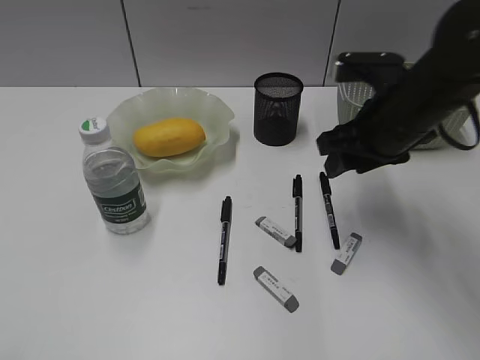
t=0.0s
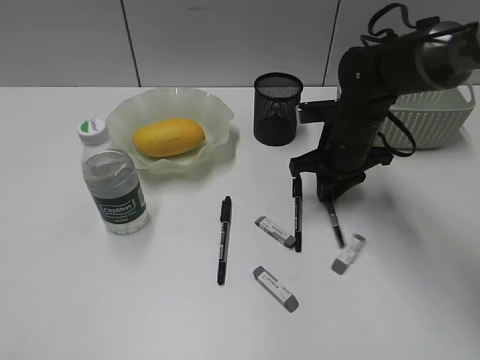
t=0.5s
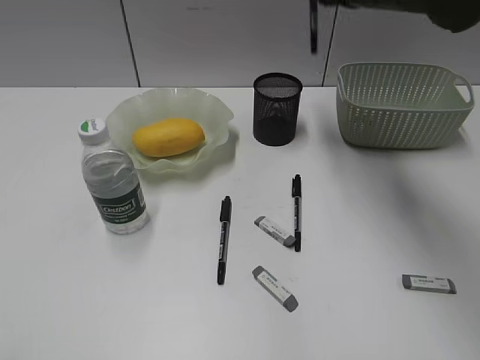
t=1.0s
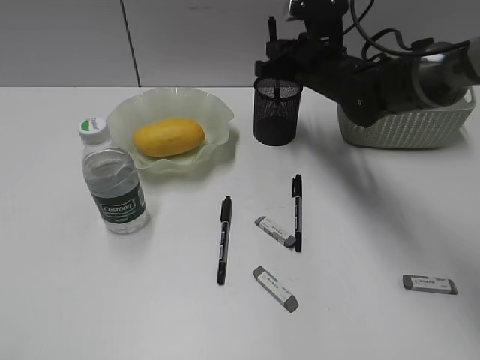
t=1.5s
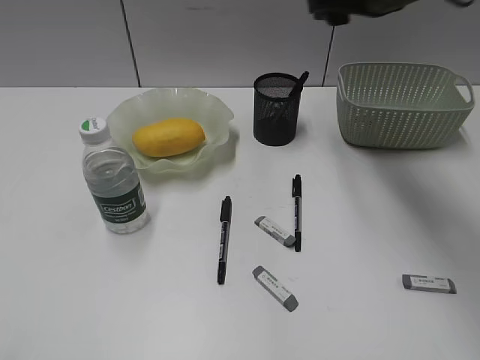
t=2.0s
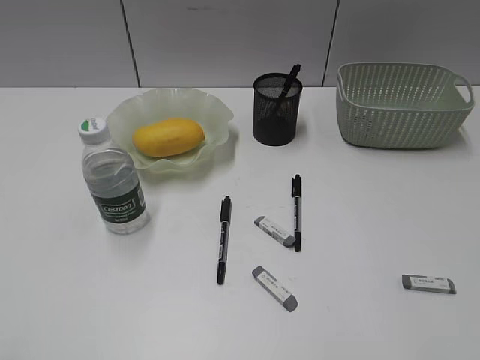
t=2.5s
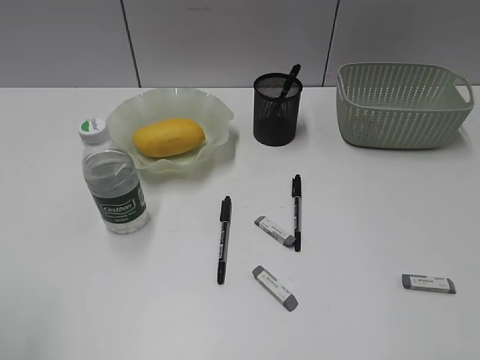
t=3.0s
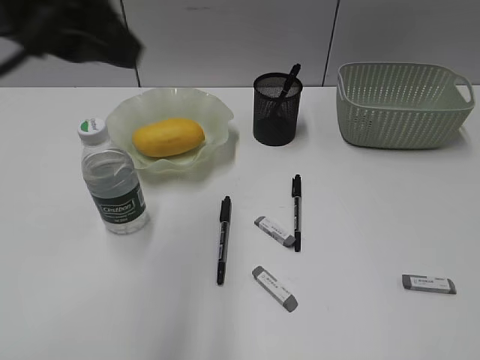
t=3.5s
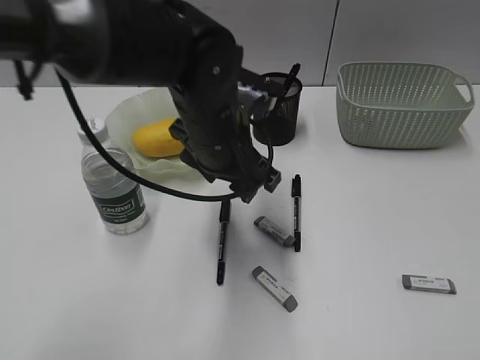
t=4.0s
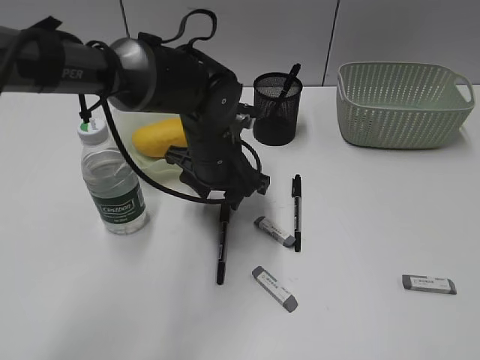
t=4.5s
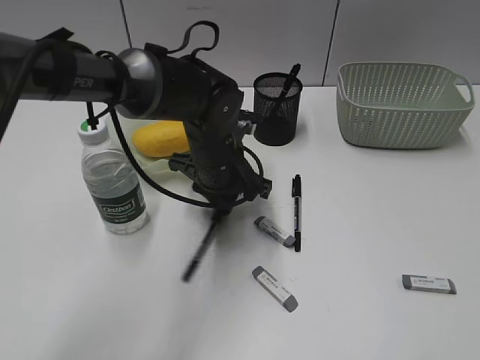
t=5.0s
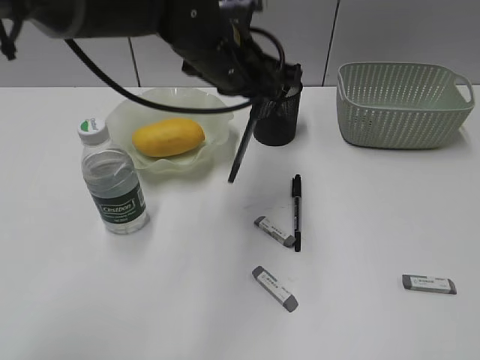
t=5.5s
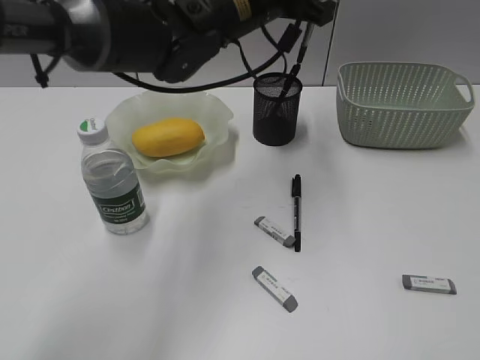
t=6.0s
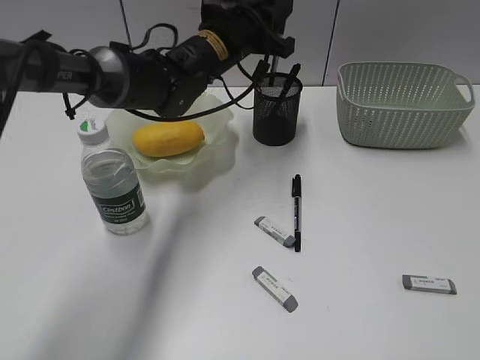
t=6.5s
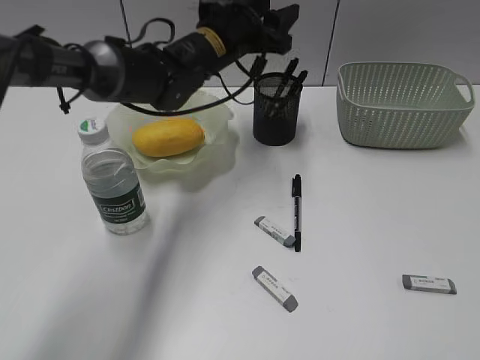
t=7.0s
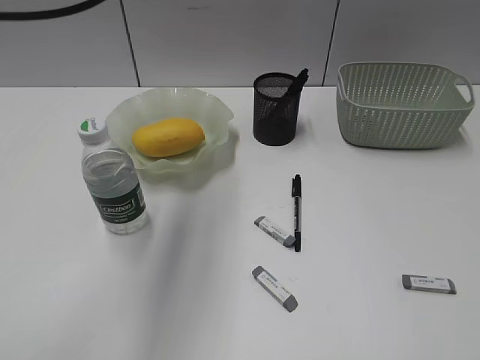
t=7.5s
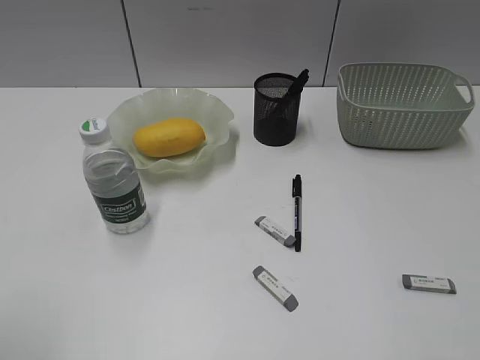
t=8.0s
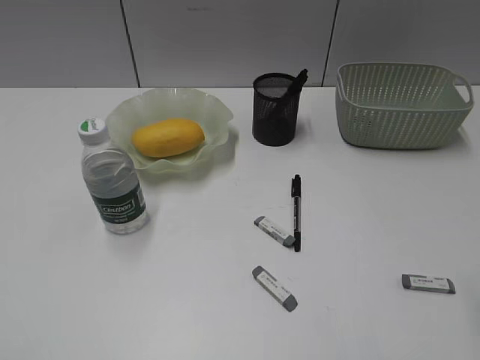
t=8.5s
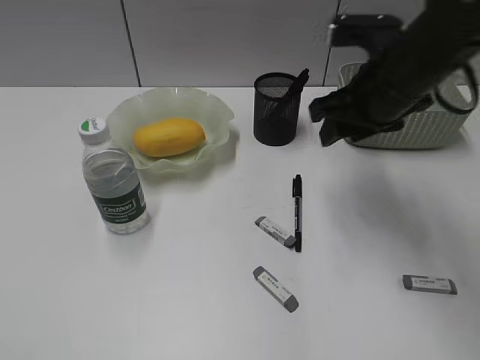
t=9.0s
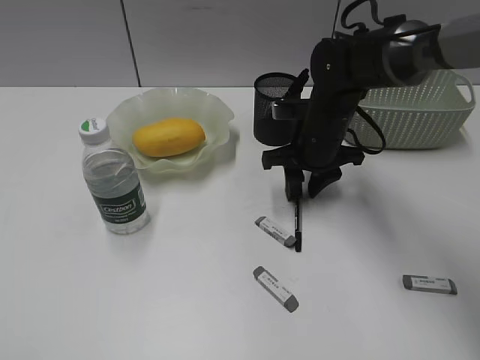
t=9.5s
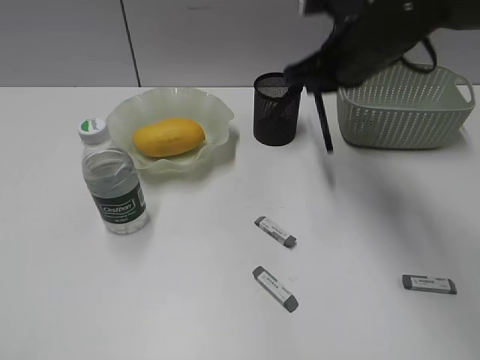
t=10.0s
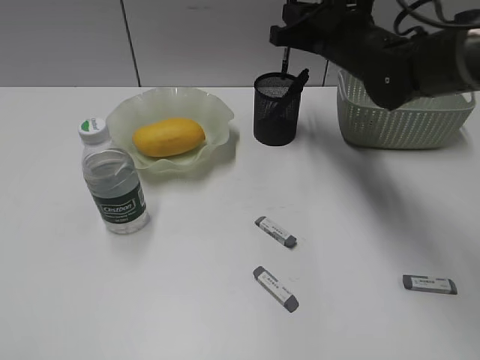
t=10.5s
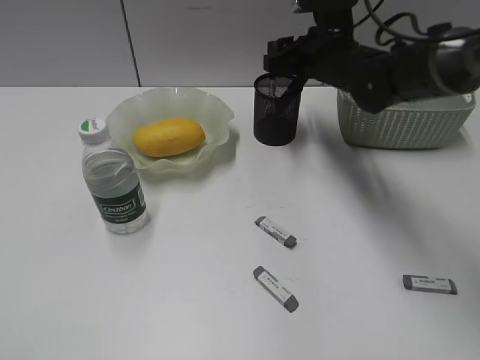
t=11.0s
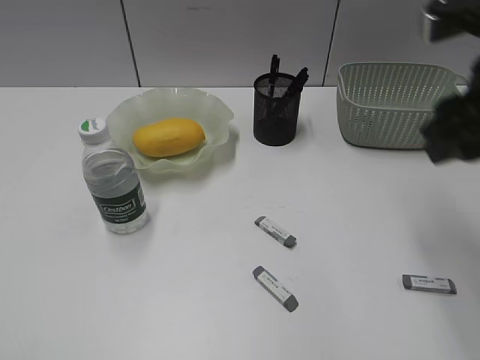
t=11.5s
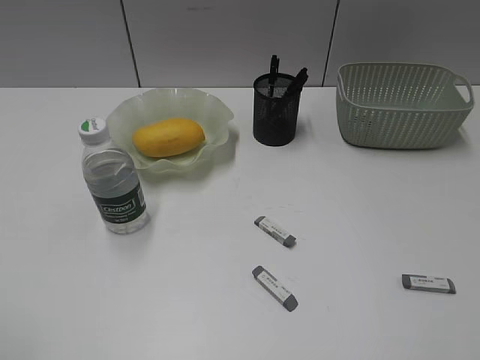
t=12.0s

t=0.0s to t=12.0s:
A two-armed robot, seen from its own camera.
Step, t=1.0s to t=1.5s: Place the black pen in pen holder with right gripper.
Step, t=2.0s to t=5.0s: Grasp the black pen with left gripper.
Step, t=5.5s to t=6.5s: Place the black pen in pen holder with left gripper.
Step, t=7.0s to t=9.5s: Grasp the black pen with right gripper.
Step, t=10.0s to t=11.0s: Place the black pen in pen holder with right gripper.
t=0.0s to t=2.0s: The right gripper swings up and down, about 20 cm each way, with 3 reversals, and closes, then opens again.
t=2.0s to t=4.0s: The left gripper moves to the right and forward, some 40 cm. Meanwhile the right gripper shifts approximately 40 cm backward and to the right.
t=4.0s to t=6.0s: The left gripper is displaced forward and upward by roughly 15 cm, and closes.
t=6.0s to t=8.0s: The left gripper moves backward and to the left, approximately 50 cm, and opens.
t=8.0s to t=10.0s: The right gripper travels forward and to the left by some 40 cm, and closes its fingers. Meanwhile the left gripper shifts by roughly 5 cm.
t=10.0s to t=12.0s: The right gripper goes approximately 40 cm backward and to the right, and opens up.

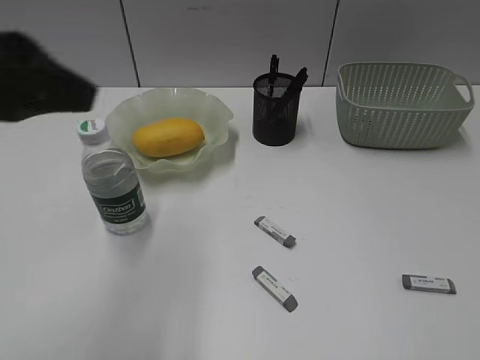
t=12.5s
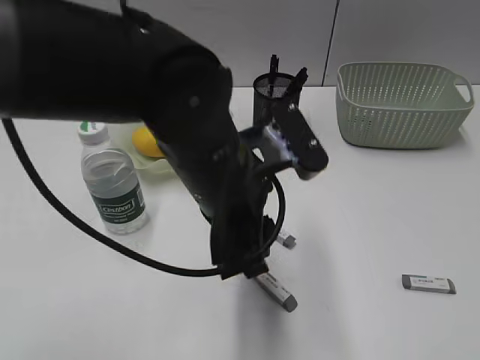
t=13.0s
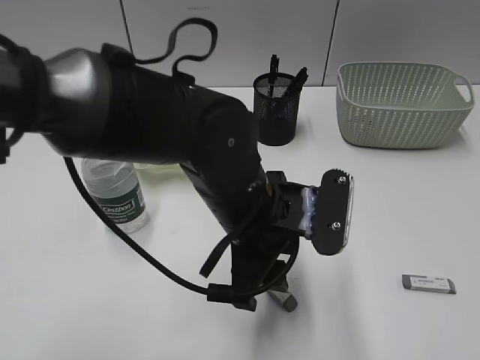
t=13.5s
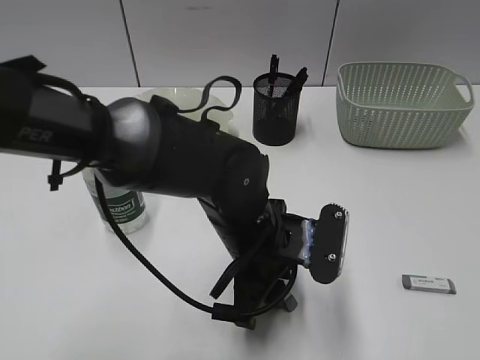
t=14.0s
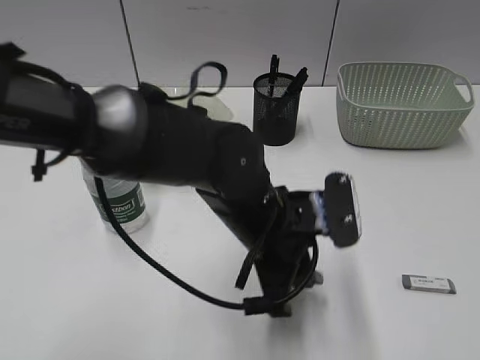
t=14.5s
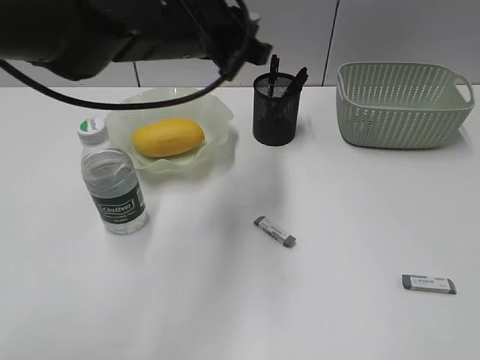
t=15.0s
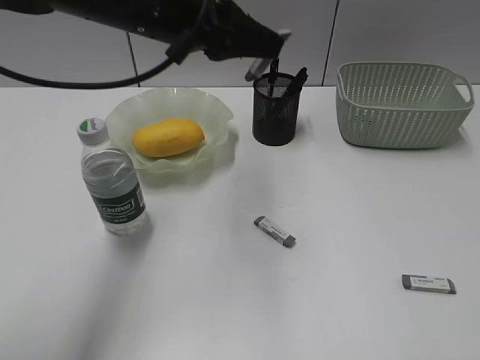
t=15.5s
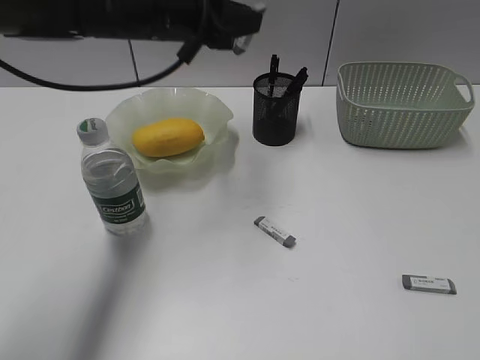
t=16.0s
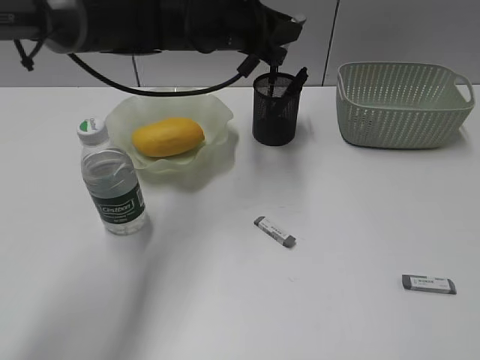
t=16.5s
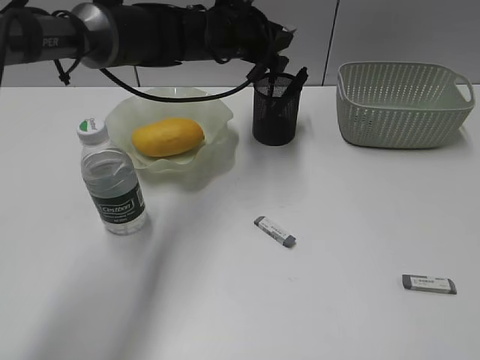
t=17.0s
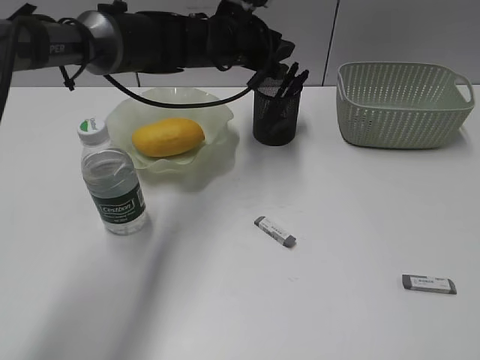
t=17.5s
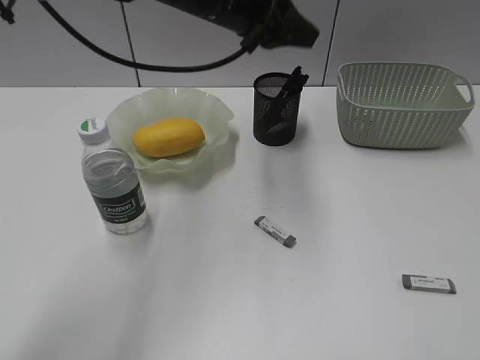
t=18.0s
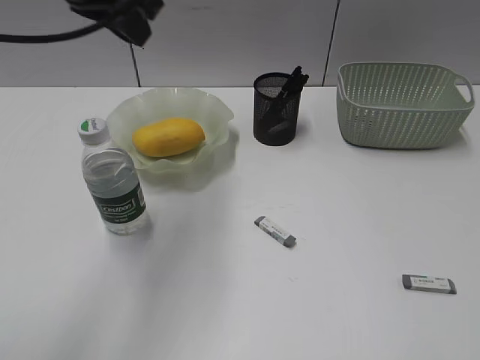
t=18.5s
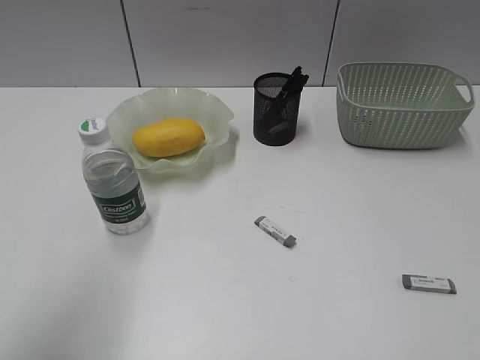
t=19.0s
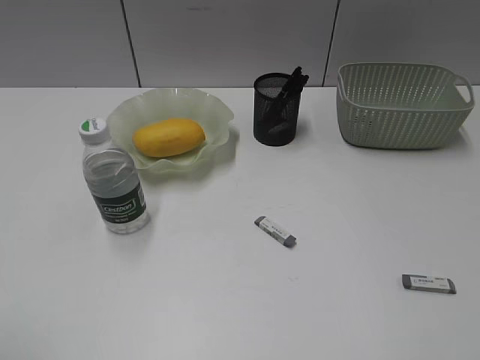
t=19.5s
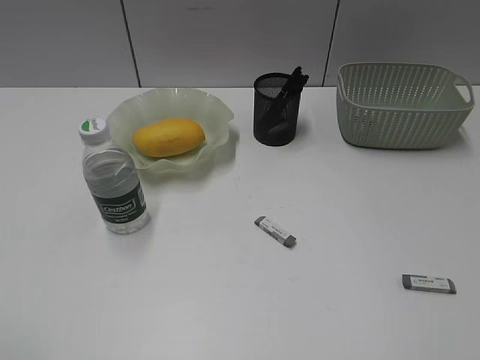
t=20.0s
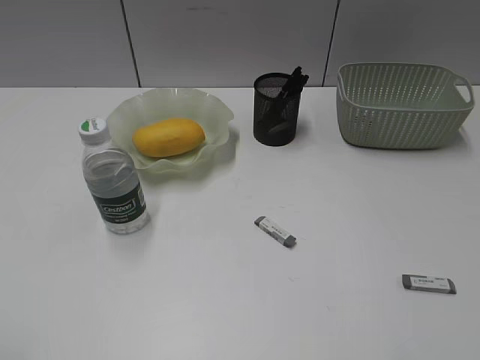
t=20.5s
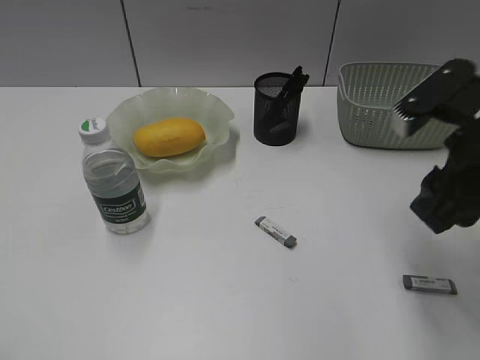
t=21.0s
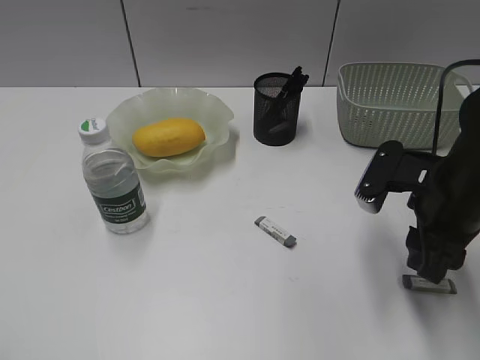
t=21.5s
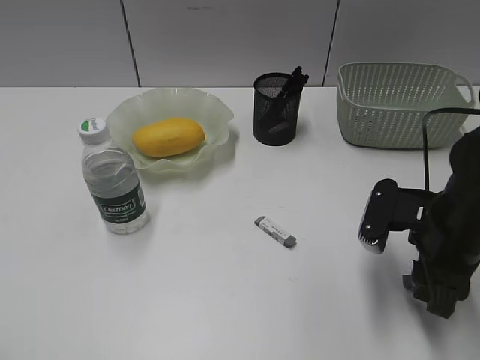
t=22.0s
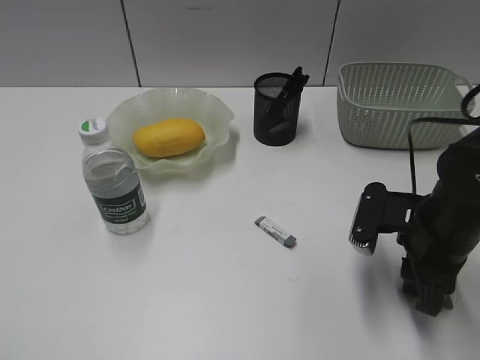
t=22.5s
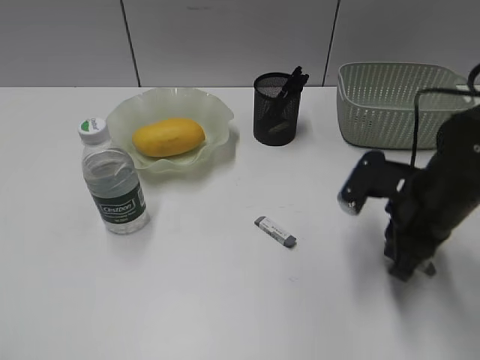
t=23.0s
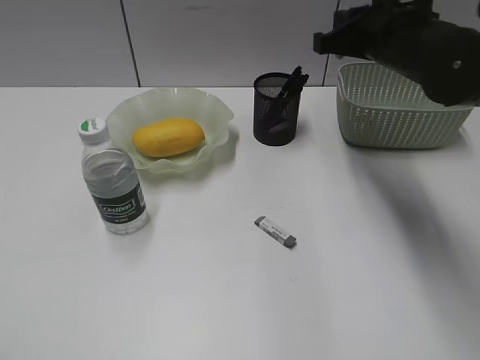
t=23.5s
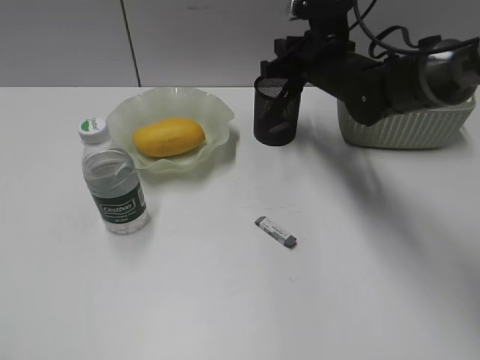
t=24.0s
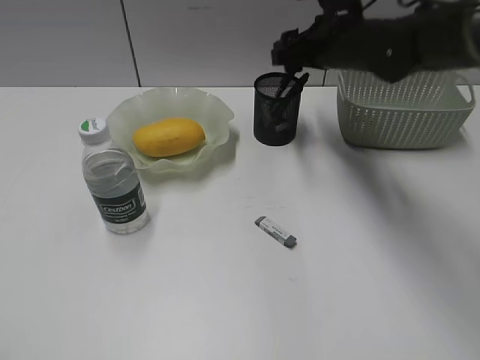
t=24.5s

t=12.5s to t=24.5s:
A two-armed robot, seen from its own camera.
Step, t=14.5s to t=17.5s: Place the eraser in pen holder with left gripper.
Step, t=18.0s to t=22.5s: Grasp the eraser with right gripper.
Step, t=23.0s to t=24.0s: Place the eraser in pen holder with right gripper.
t=12.5s to t=14.5s: The left gripper shifts some 30 cm downward and to the right.
t=14.5s to t=16.5s: The left gripper travels forward and upward by about 25 cm.
t=16.5s to t=18.5s: The left gripper shifts roughly 20 cm upward, to the left and backward.
t=18.5s to t=20.5s: The right gripper goes about 10 cm forward. The left gripper travels backward and to the left by approximately 35 cm.
t=20.5s to t=22.5s: The right gripper heads downward and forward, covering approximately 25 cm.
t=22.5s to t=24.5s: The right gripper travels forward, upward and to the left by roughly 25 cm, and opens up.

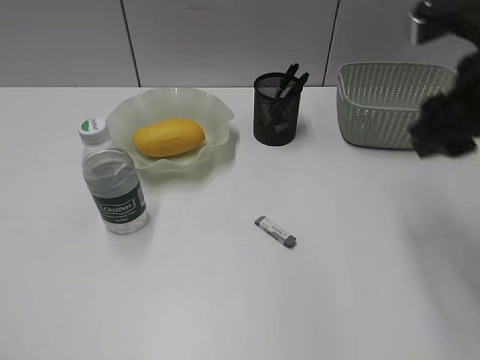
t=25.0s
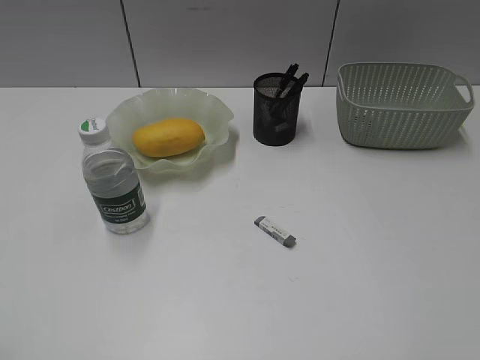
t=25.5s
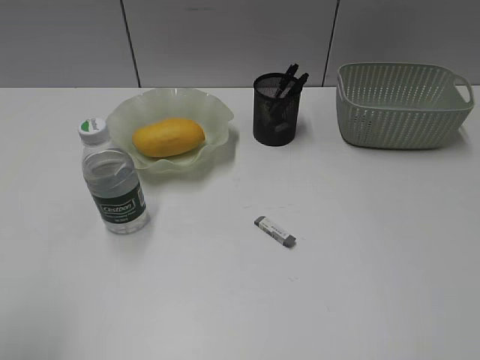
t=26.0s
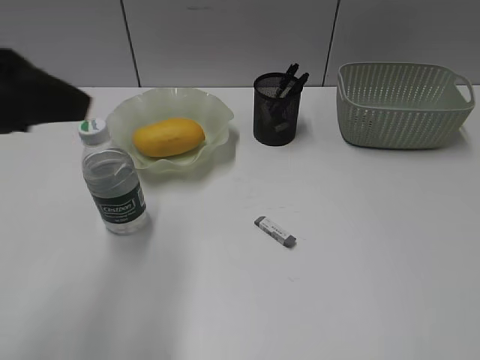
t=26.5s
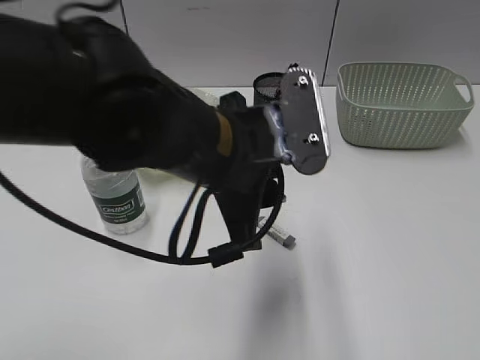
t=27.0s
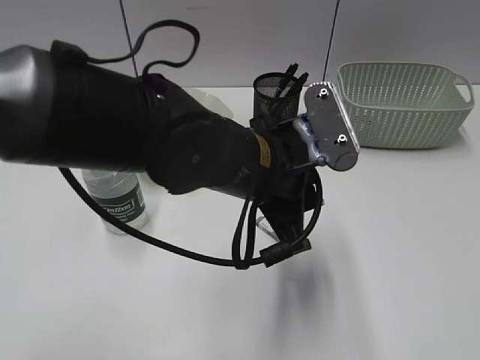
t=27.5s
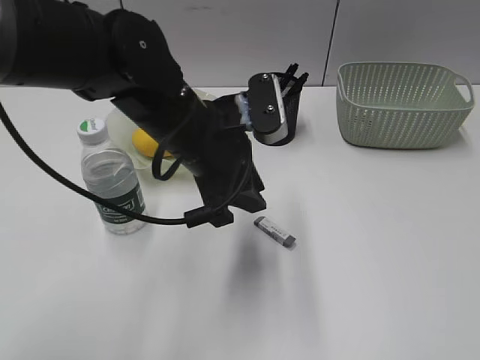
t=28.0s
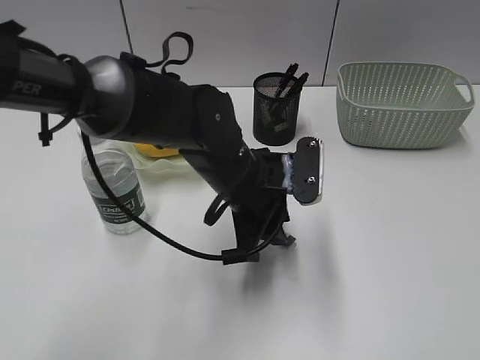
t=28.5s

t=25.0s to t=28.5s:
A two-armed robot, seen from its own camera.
t=25.0s to t=27.0s: The right gripper moves backward, approximately 25 cm. Meanwhile the left gripper heads to the right and forward, covering about 40 cm.
t=27.0s to t=28.5s: The left gripper heads downward and forward, covering approximately 10 cm.
